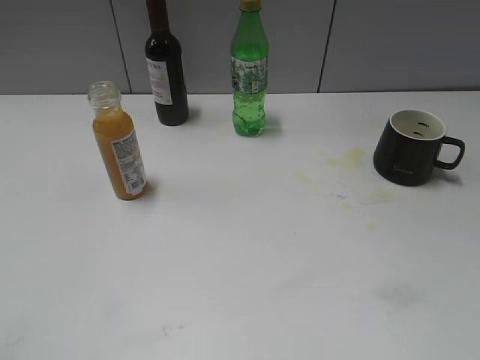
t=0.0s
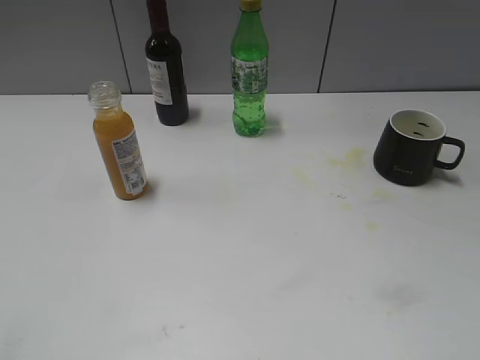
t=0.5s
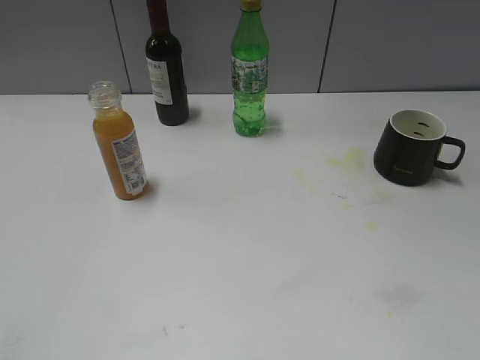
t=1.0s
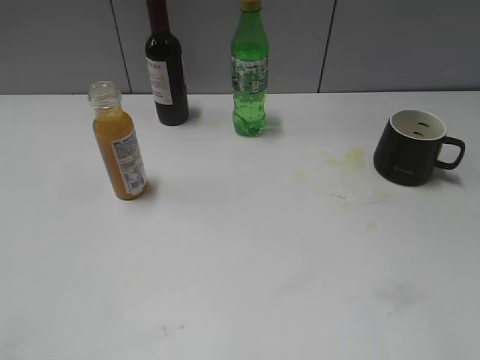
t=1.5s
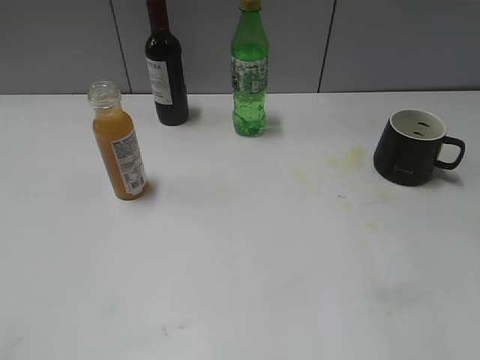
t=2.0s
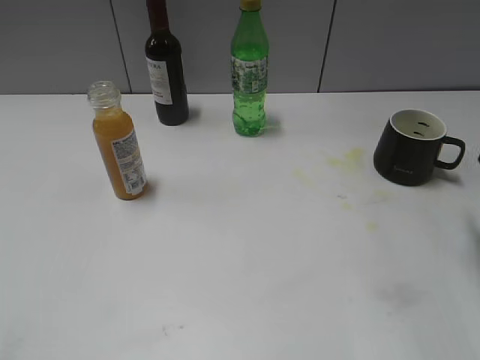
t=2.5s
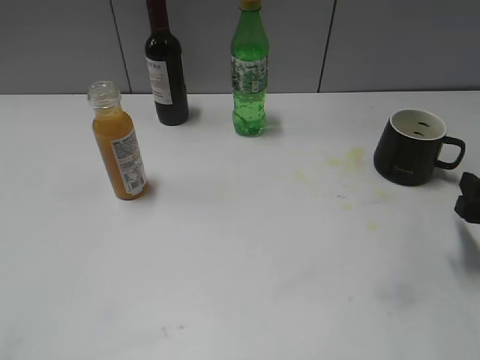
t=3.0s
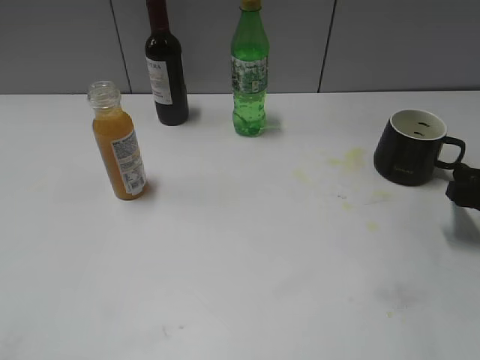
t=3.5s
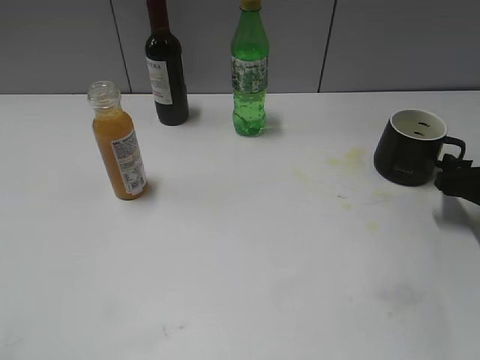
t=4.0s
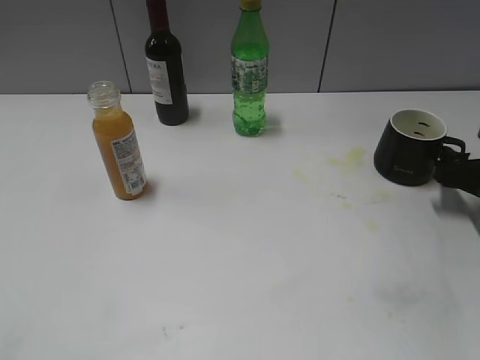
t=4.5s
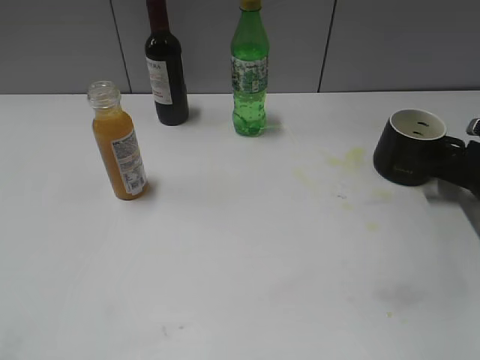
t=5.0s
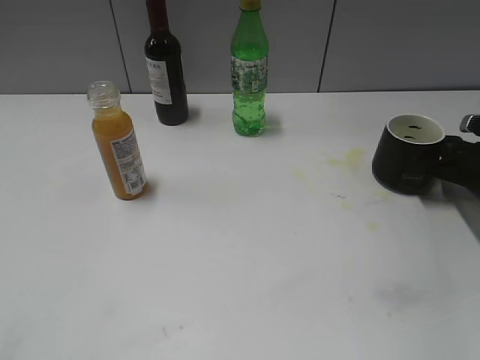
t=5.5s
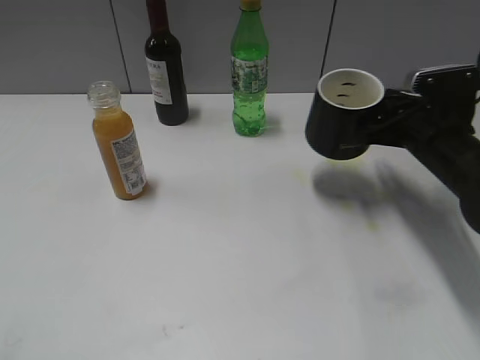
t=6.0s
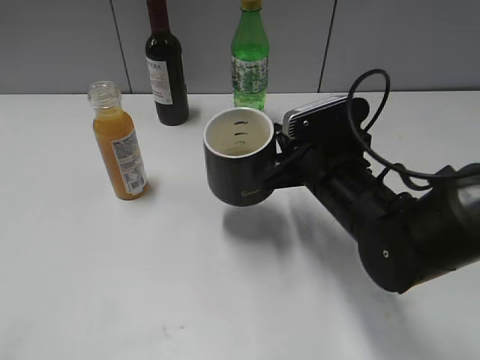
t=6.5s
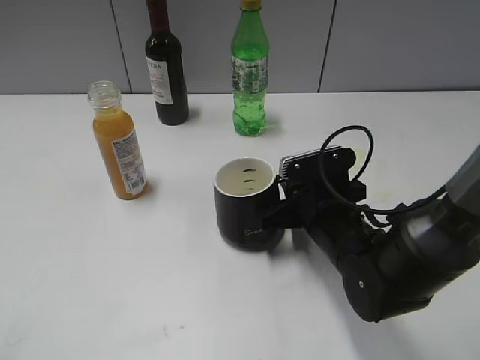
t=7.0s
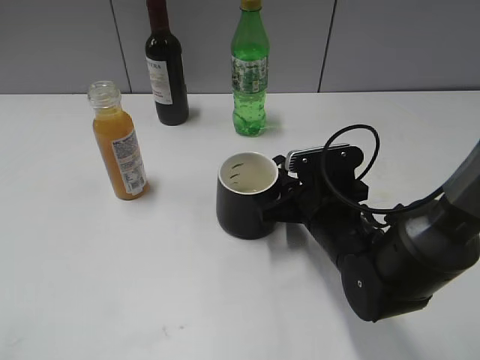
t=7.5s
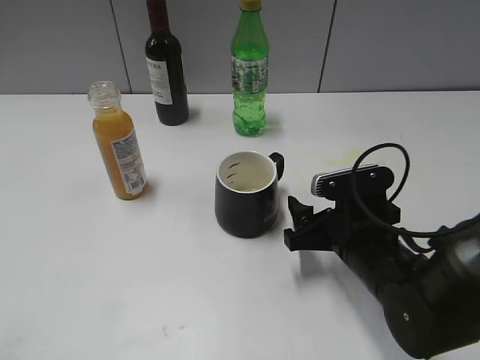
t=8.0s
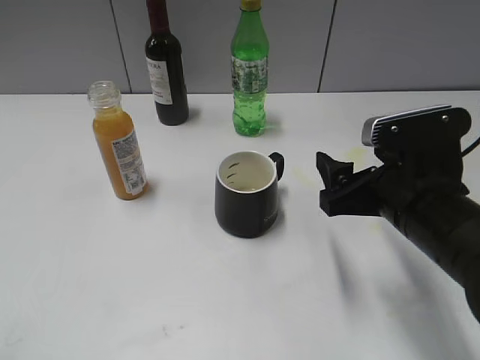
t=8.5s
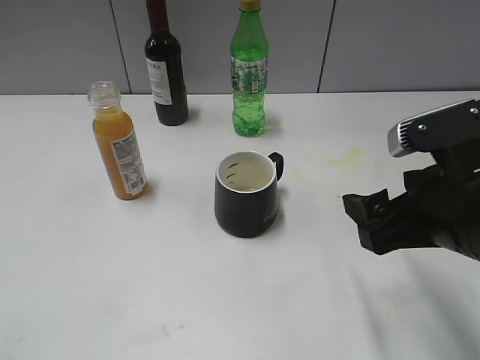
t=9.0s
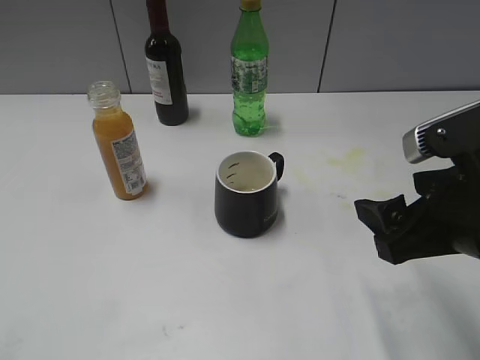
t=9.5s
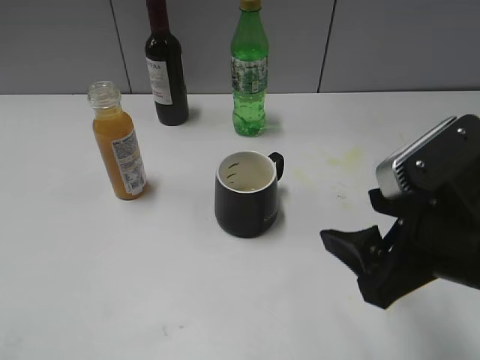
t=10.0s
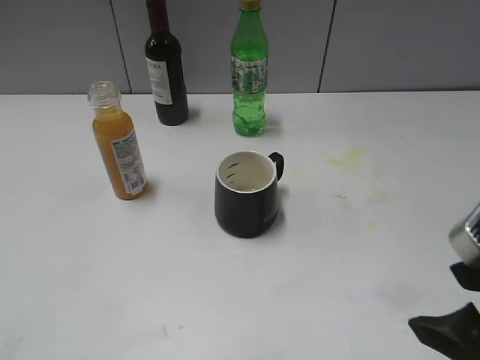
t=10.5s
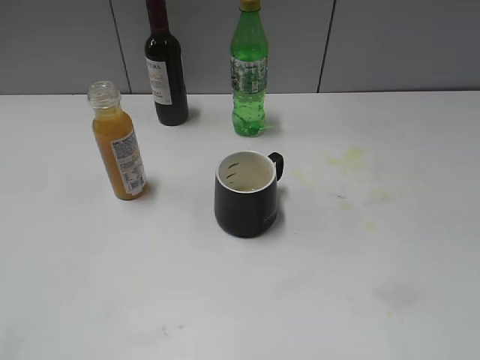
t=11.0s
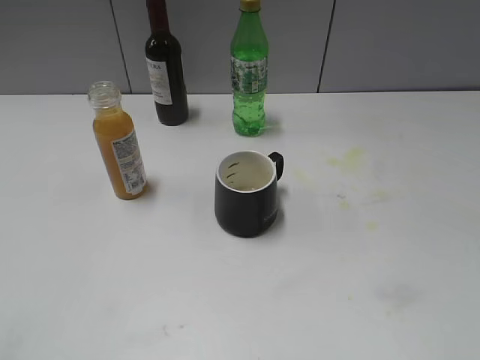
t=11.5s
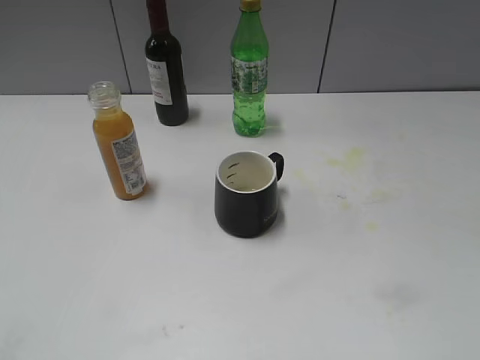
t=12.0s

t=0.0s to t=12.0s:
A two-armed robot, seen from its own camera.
Step, t=3.0s to t=5.5s: Grasp the black cup with right gripper.
Step, t=6.0s to t=7.5s: Place the black cup in the center of view with right gripper.
t=2.0s to t=4.0s: The right gripper moves downward and forward, roughly 20 cm.
t=4.0s to t=6.0s: The right gripper moves to the left and upward, roughly 10 cm, and closes its fingers.
t=6.0s to t=8.0s: The right gripper is displaced to the left, backward and downward by some 15 cm, and opens up.
t=8.0s to t=10.0s: The right gripper moves upward and backward, roughly 15 cm.
t=10.0s to t=12.0s: The right gripper shifts some 20 cm backward and to the right.

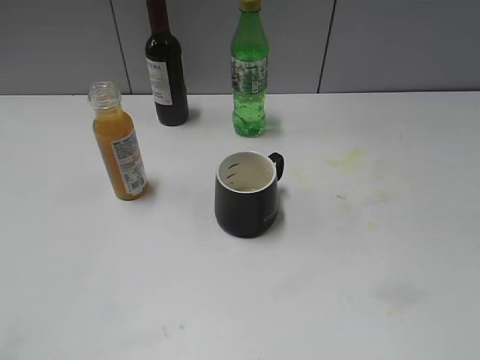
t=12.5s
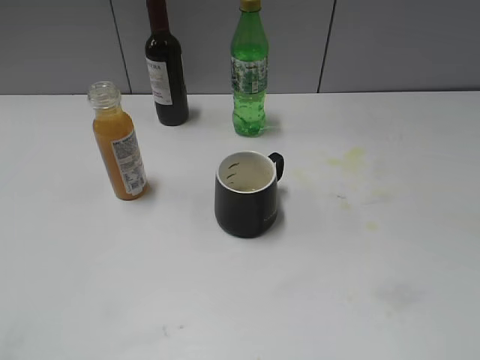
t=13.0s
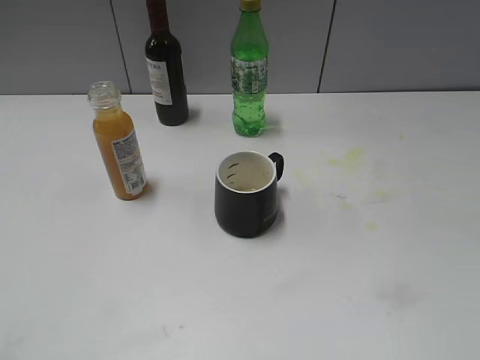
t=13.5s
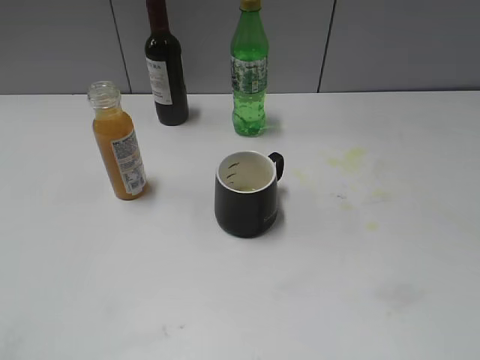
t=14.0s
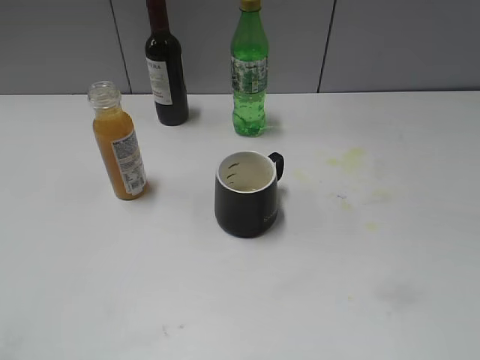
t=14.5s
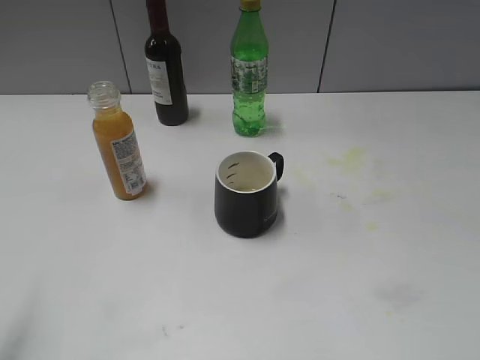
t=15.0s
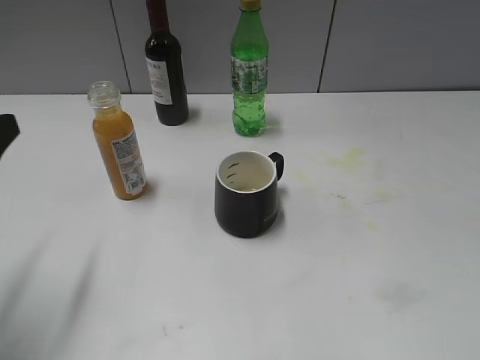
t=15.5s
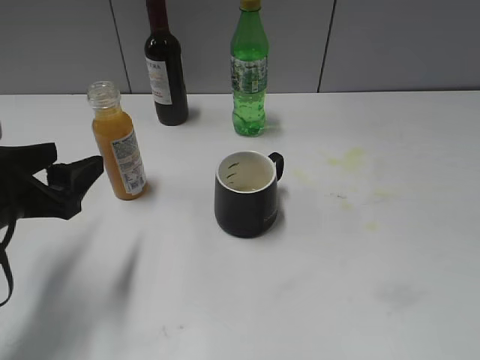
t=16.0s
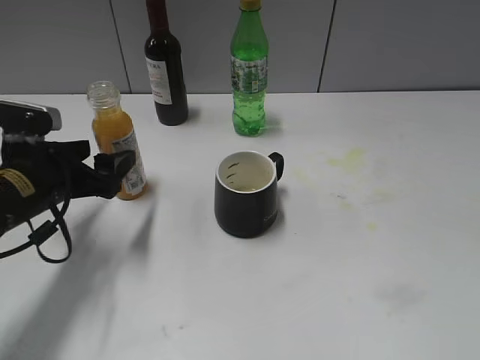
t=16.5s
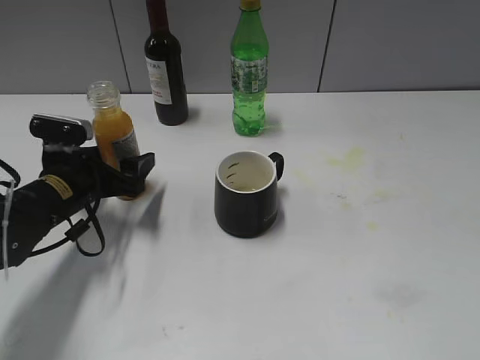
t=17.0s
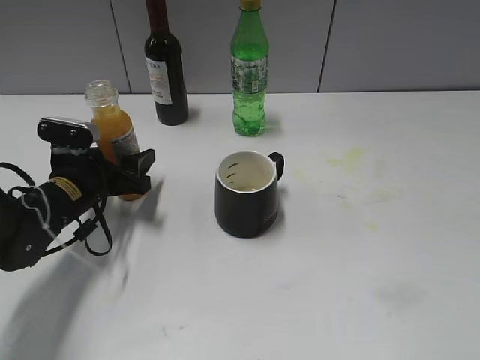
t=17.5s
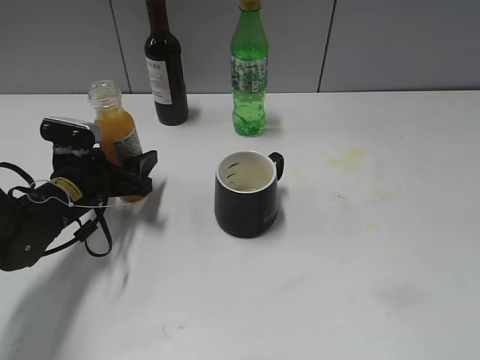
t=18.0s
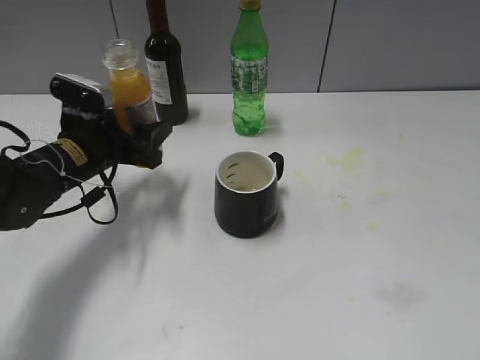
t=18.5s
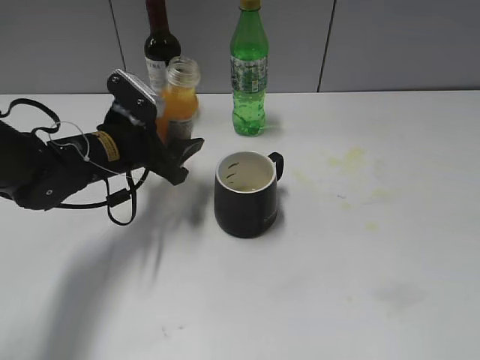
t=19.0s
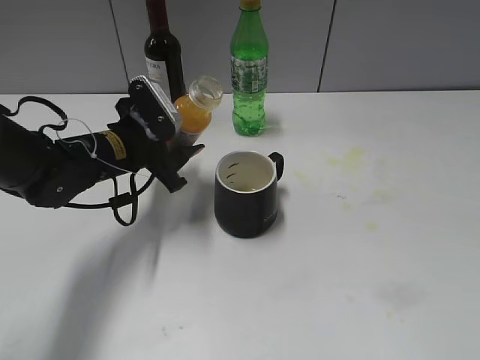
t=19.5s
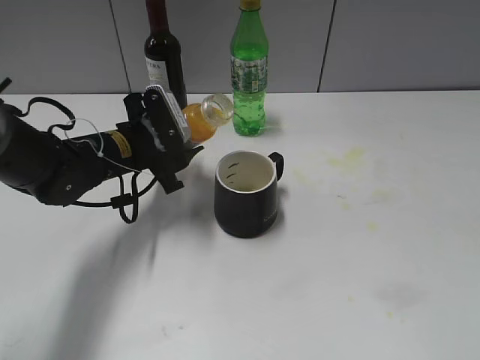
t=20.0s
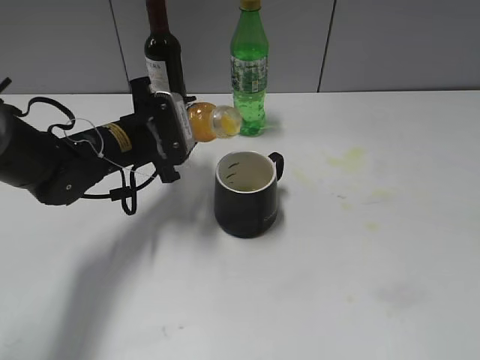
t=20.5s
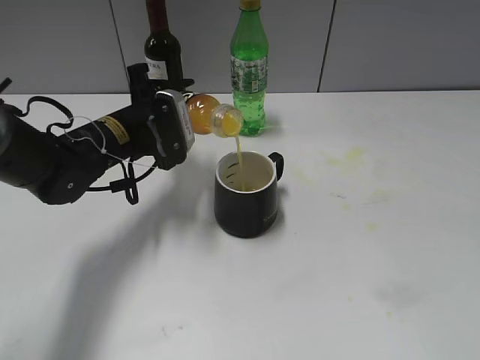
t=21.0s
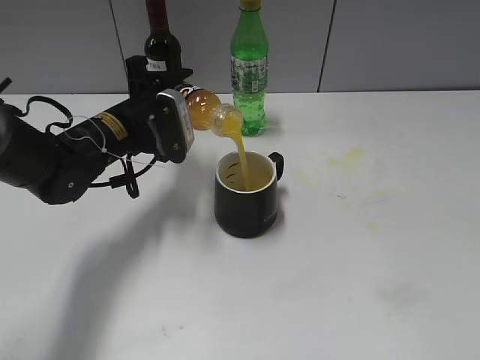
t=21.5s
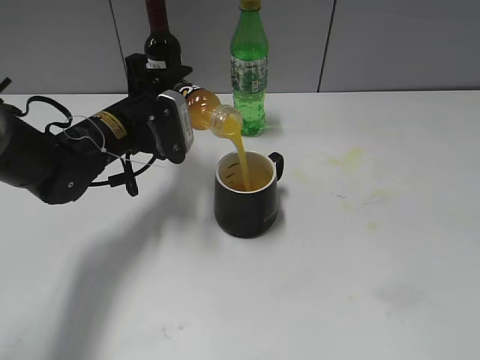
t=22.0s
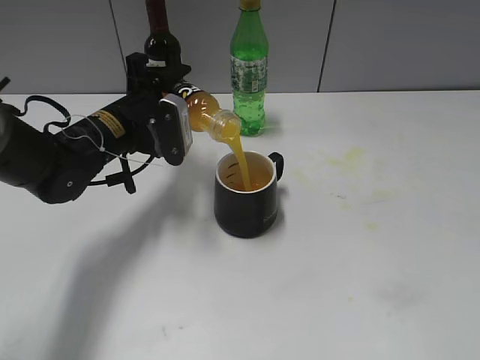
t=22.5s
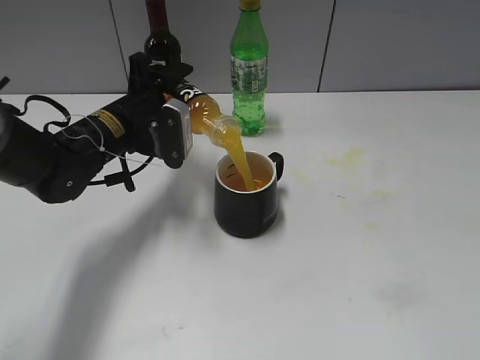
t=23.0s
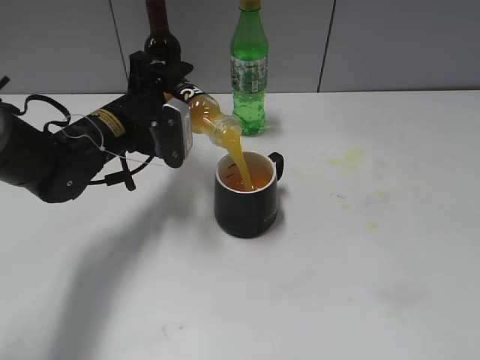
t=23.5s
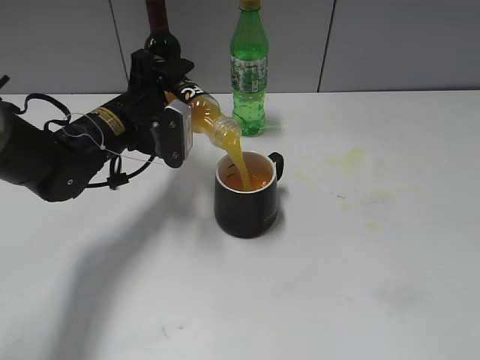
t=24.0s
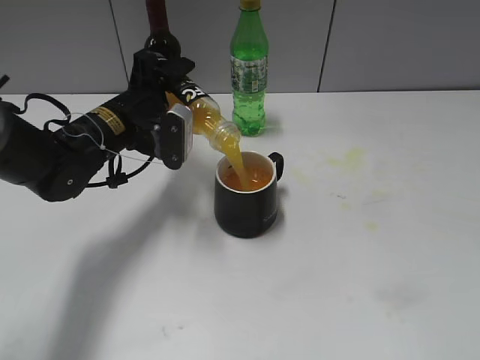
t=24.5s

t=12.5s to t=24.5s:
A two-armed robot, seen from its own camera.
Step, t=12.5s to t=17.5s: Grasp the bottle with orange juice with left gripper.
t=14.5s to t=16.5s: The left gripper travels forward and downward by about 30 cm.
t=16.5s to t=18.5s: The left gripper moves forward, roughly 5 cm, and closes its fingers.
t=18.5s to t=20.5s: The left gripper shifts about 5 cm to the right.
t=22.5s to t=24.5s: The grippers move only a little.

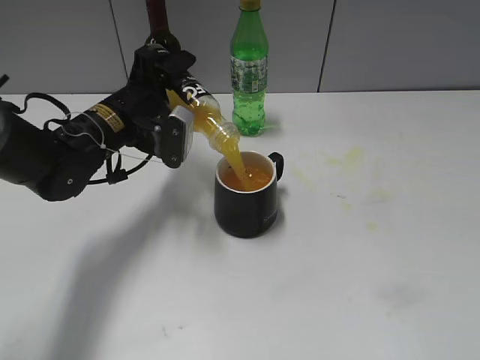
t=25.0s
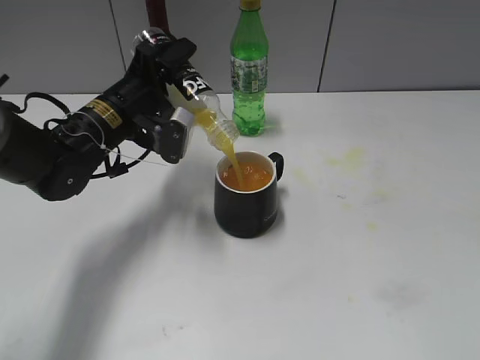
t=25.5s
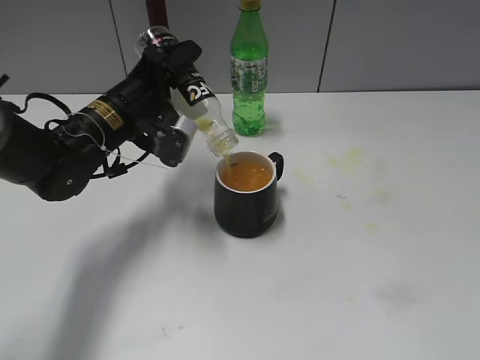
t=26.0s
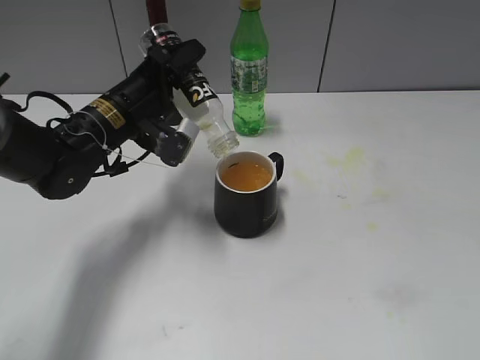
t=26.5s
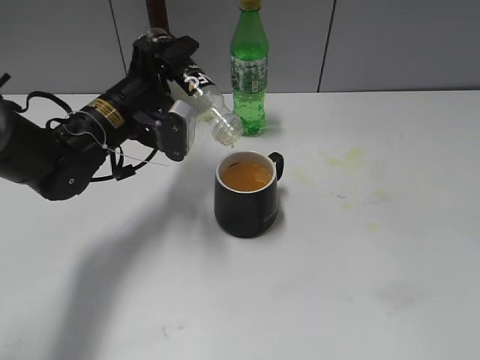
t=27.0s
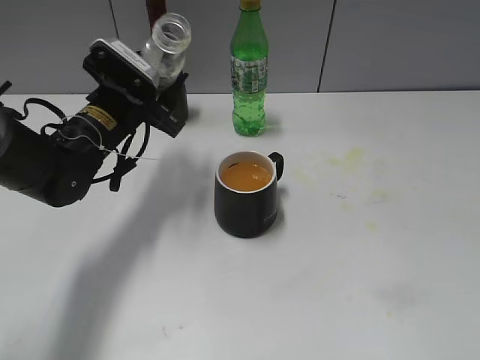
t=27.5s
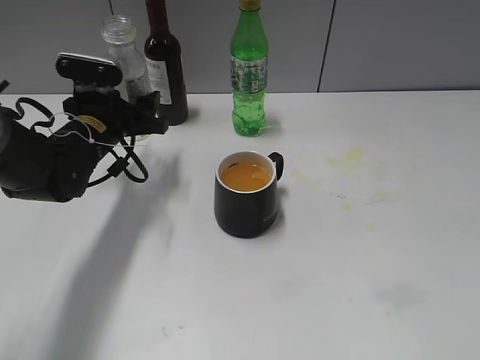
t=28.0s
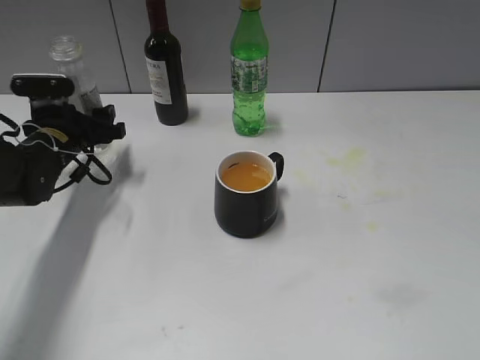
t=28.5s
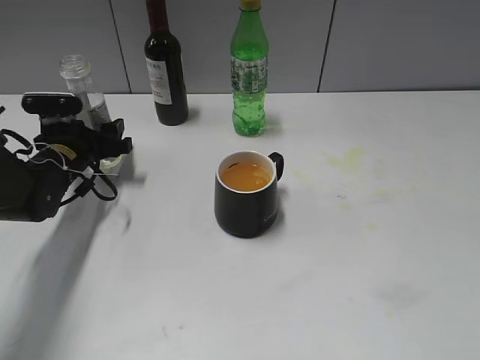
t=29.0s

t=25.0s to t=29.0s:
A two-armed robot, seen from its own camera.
Step, t=25.0s to t=27.0s: Pour the orange juice from bottle to cup with left gripper.
t=25.0s to t=27.0s: The grippers move only a little.
t=27.0s to t=29.0s: The left gripper is displaced to the left and downward by roughly 15 cm.
